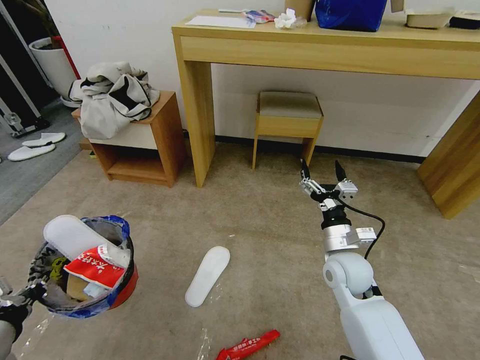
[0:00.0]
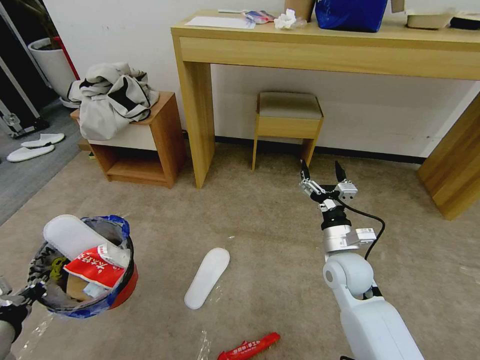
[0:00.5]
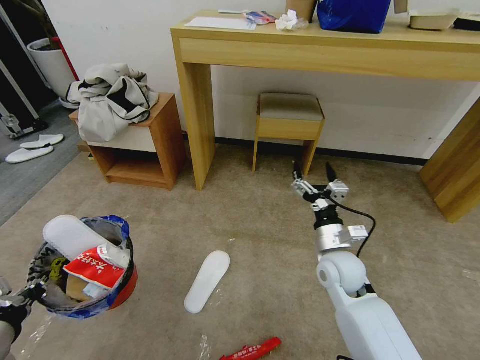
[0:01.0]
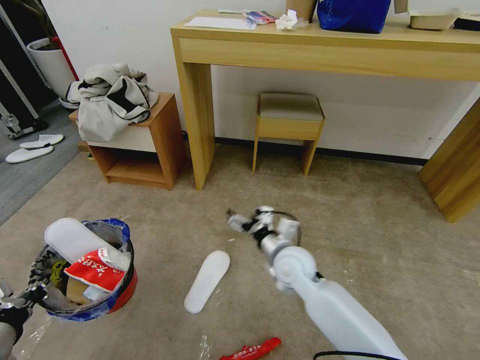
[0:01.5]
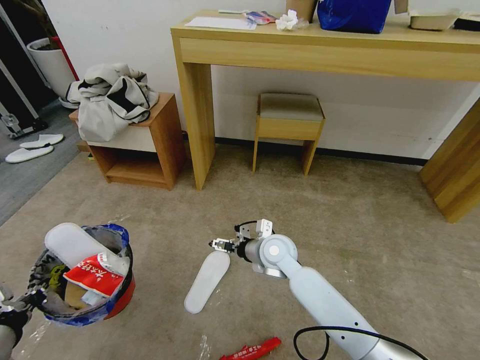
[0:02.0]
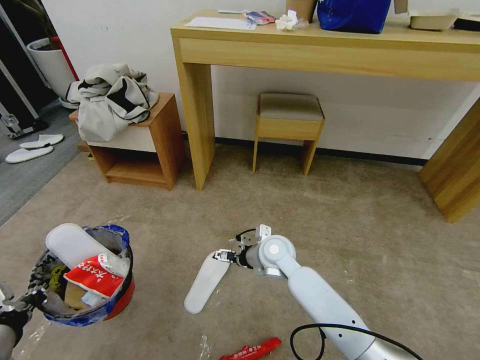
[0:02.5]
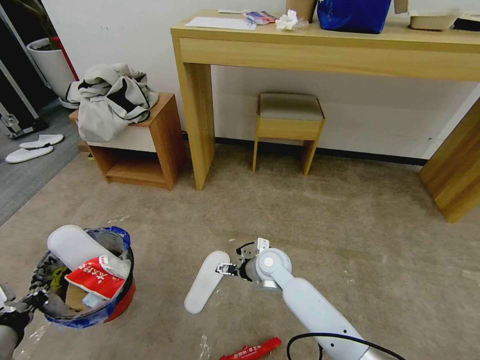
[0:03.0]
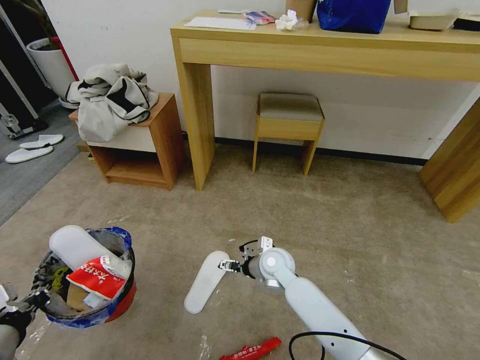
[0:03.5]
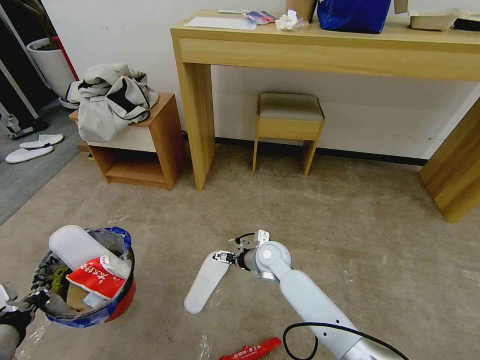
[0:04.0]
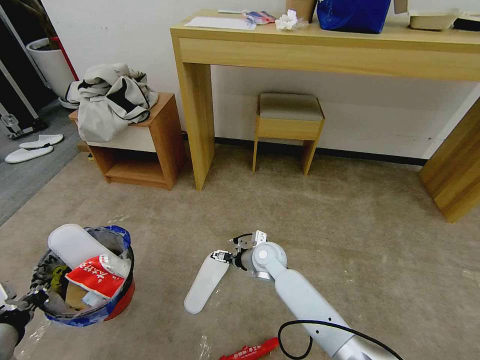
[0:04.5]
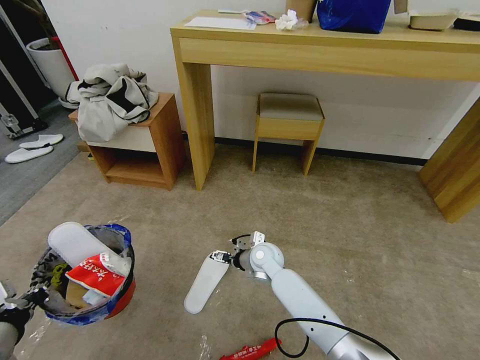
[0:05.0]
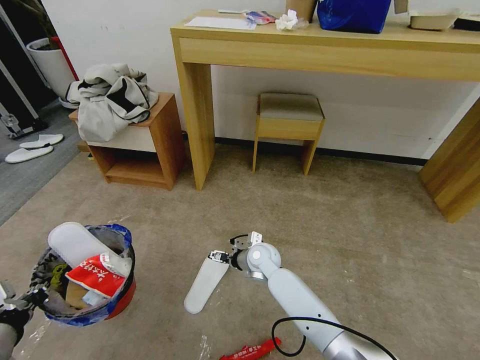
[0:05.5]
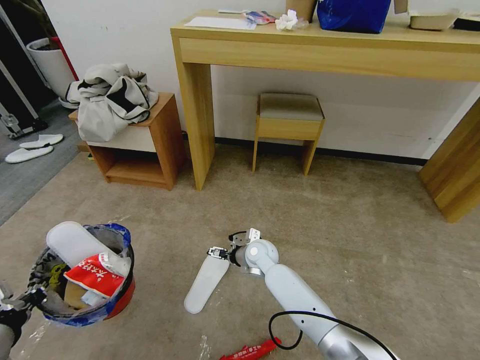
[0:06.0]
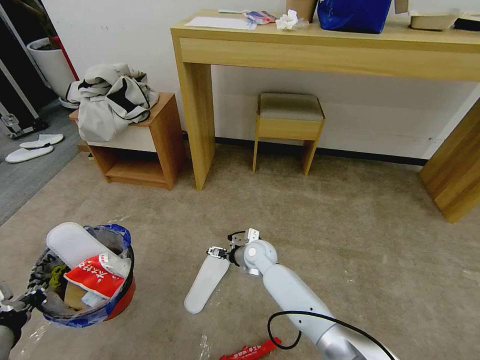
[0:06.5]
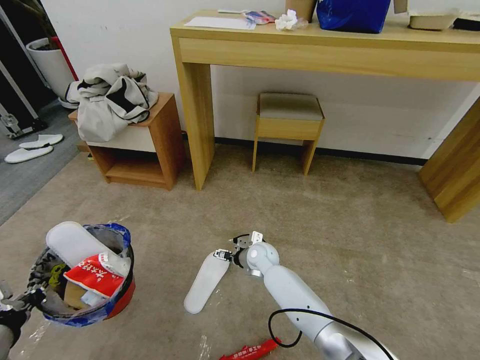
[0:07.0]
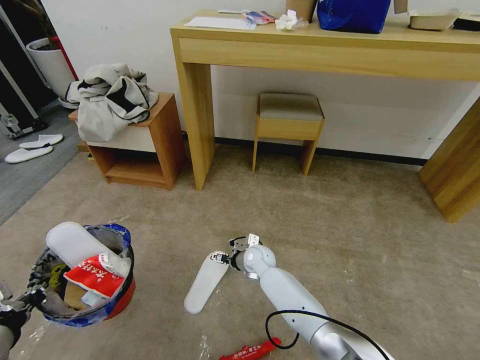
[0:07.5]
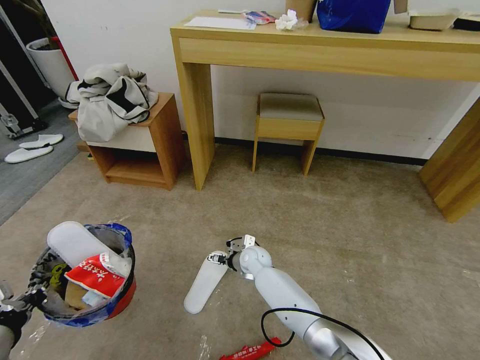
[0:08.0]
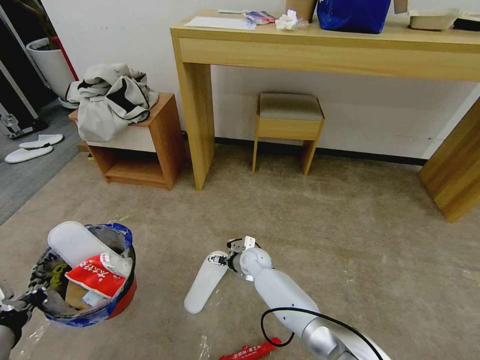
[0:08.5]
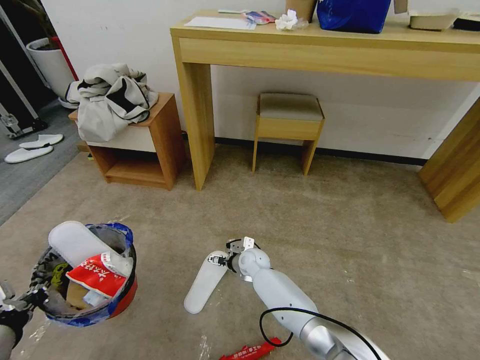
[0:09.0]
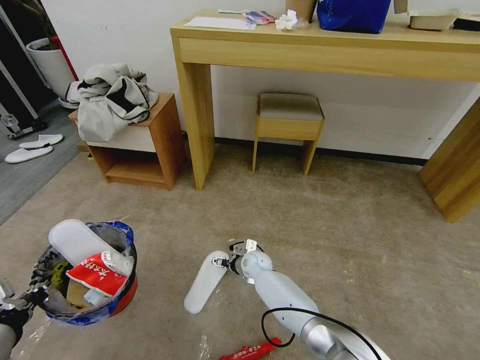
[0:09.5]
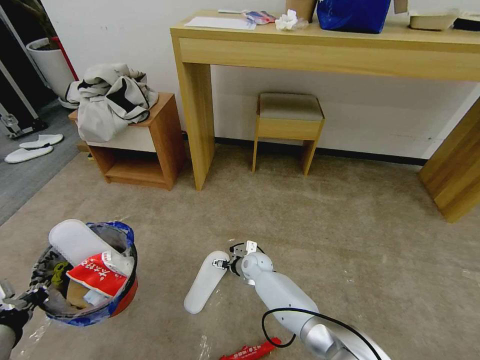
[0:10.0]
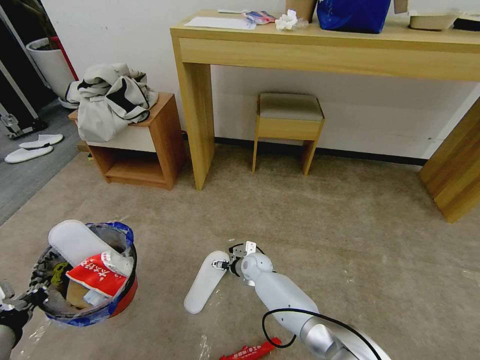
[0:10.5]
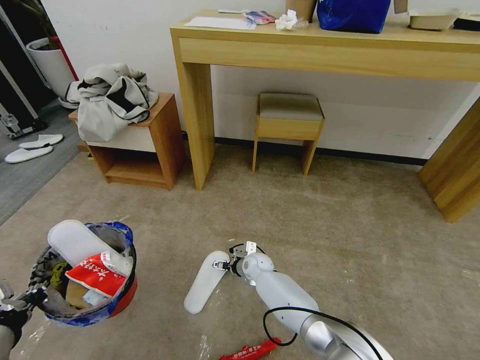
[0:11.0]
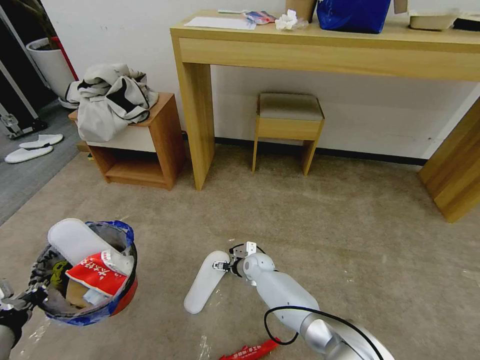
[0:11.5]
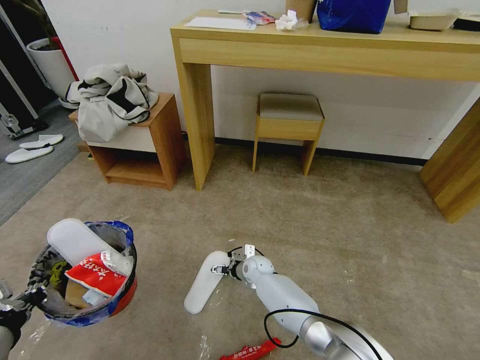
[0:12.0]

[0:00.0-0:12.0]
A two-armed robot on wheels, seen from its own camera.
Task of the whole recording: Pick up the trash bin and place the garbage on the floor into it.
0:00.0 to 0:02.0: The right gripper moves to the left and forward, roughly 15 cm.
0:02.0 to 0:04.0: The right gripper is displaced downward by some 5 cm.
0:04.0 to 0:06.0: The grippers make only small movements.
0:06.0 to 0:08.0: The right gripper moves some 5 cm.
0:08.0 to 0:12.0: There are only small adjustments of the grippers.

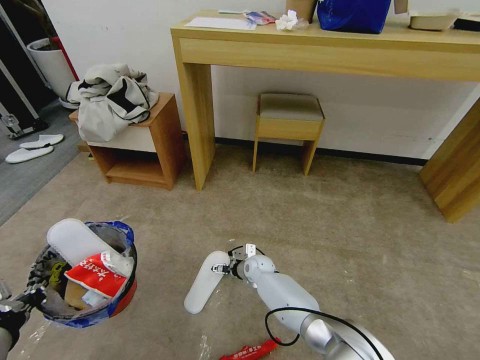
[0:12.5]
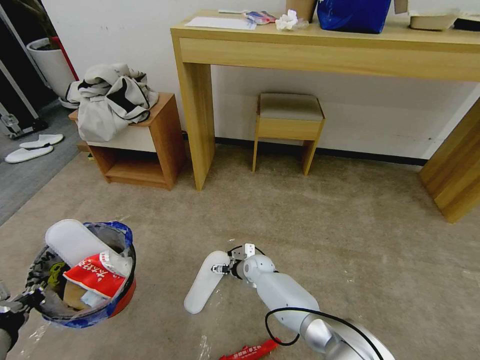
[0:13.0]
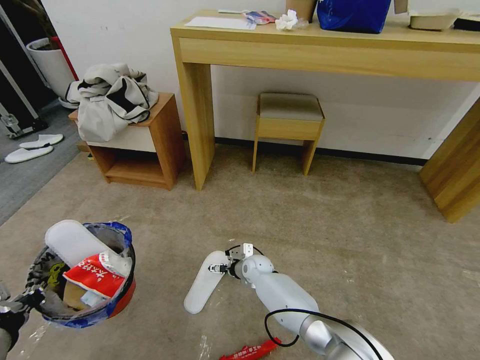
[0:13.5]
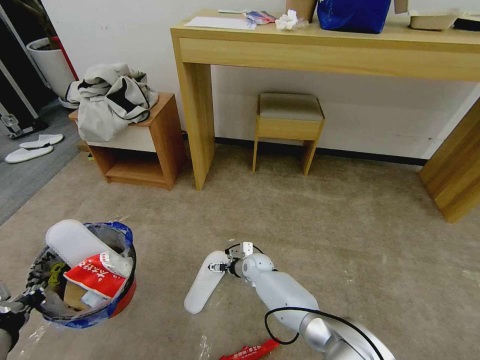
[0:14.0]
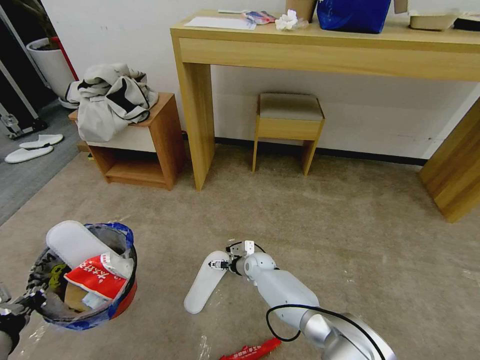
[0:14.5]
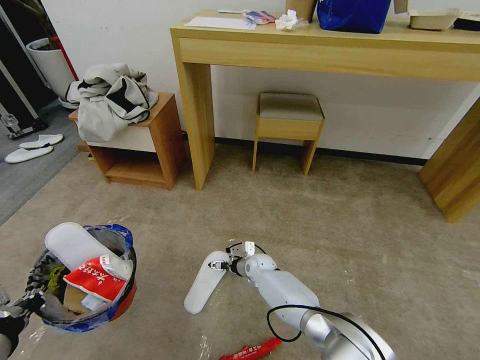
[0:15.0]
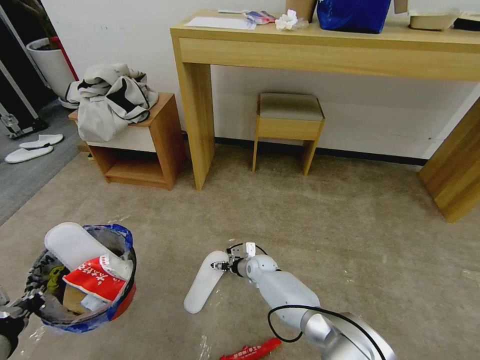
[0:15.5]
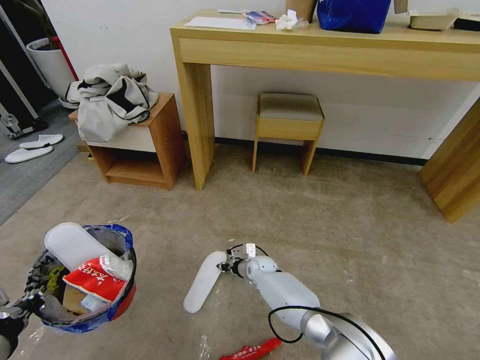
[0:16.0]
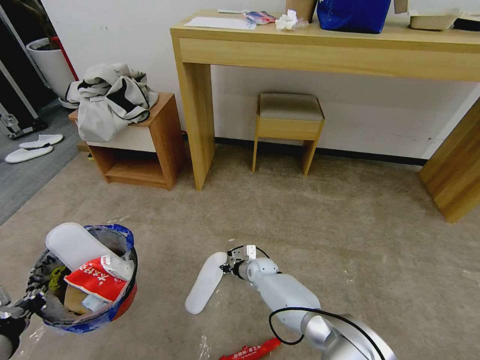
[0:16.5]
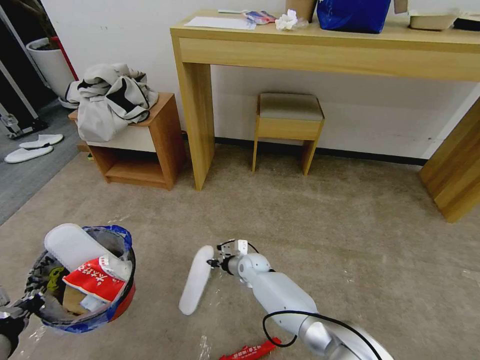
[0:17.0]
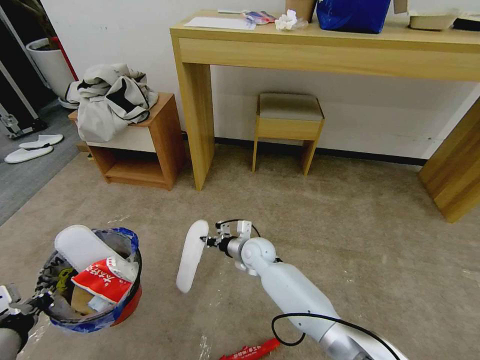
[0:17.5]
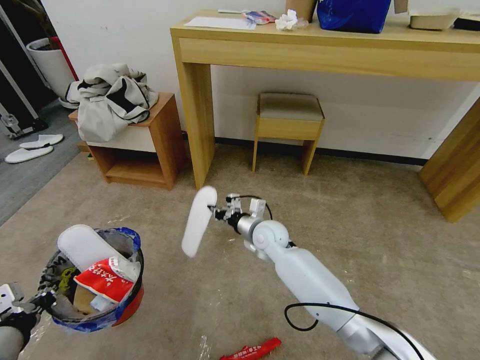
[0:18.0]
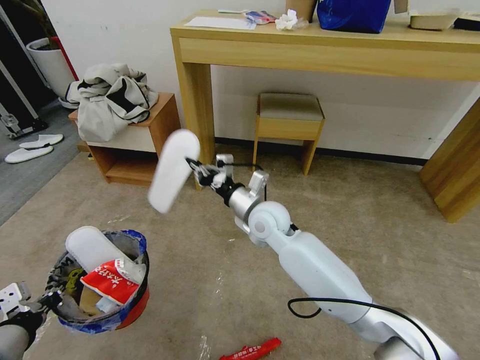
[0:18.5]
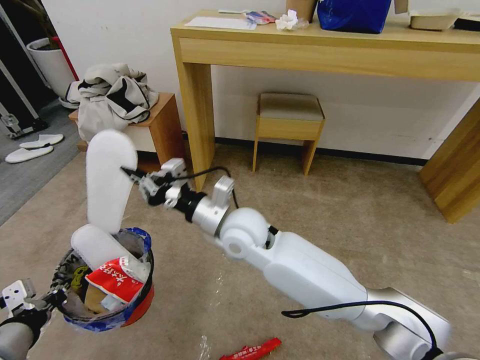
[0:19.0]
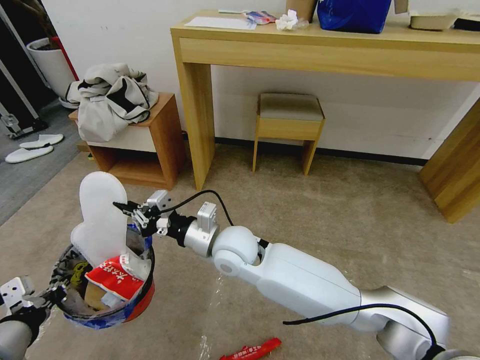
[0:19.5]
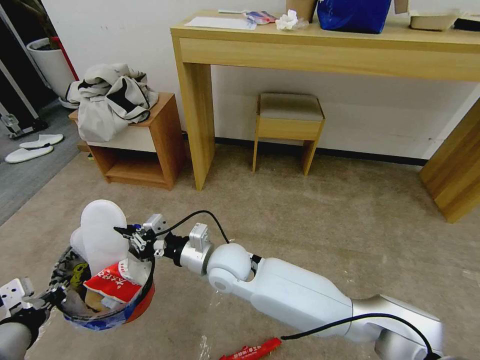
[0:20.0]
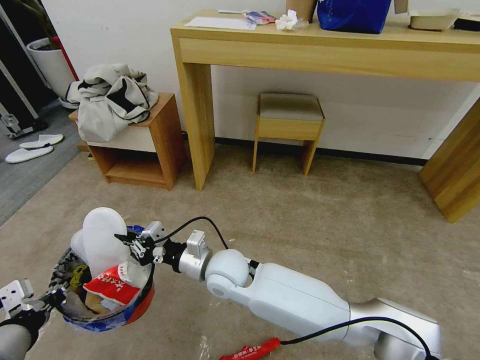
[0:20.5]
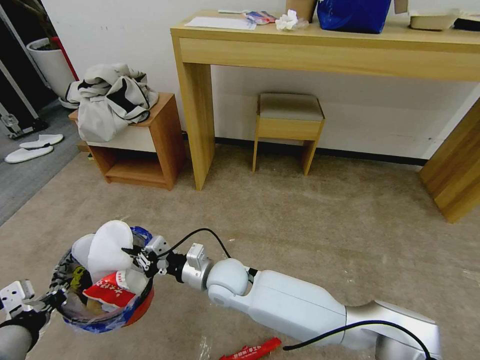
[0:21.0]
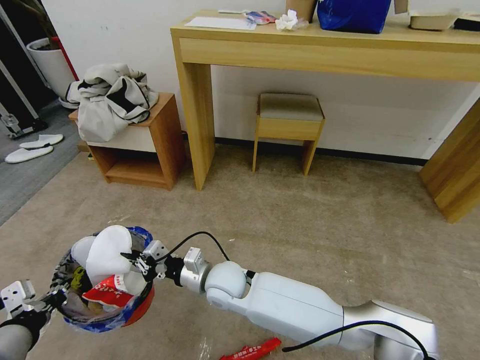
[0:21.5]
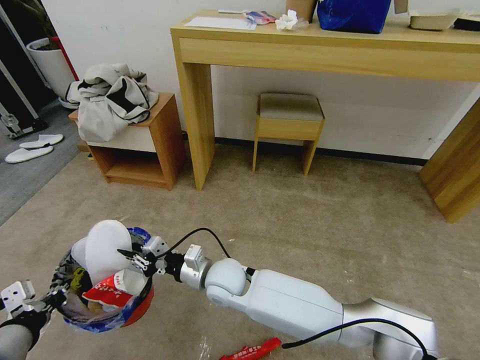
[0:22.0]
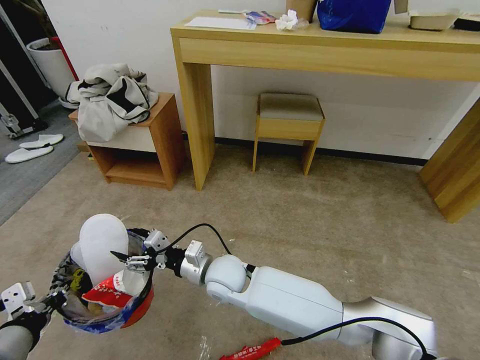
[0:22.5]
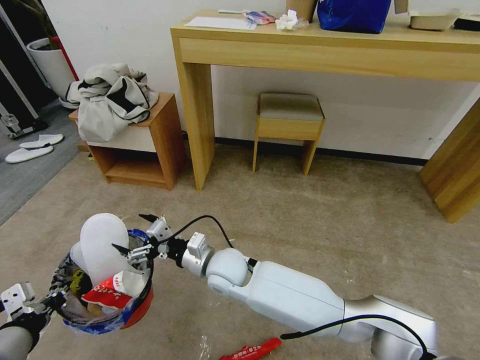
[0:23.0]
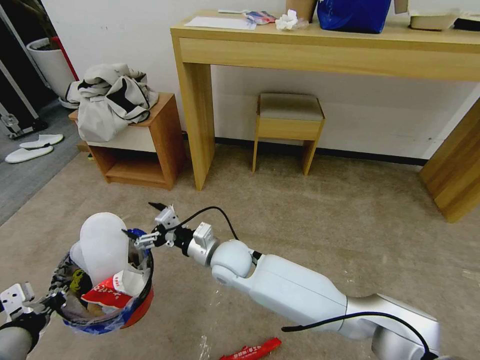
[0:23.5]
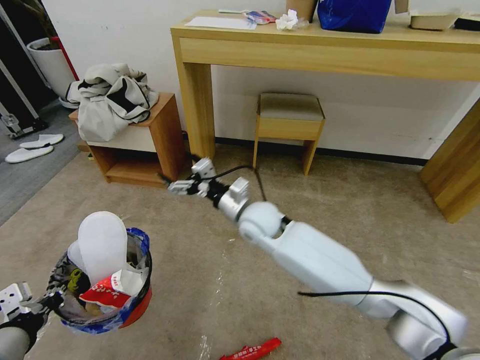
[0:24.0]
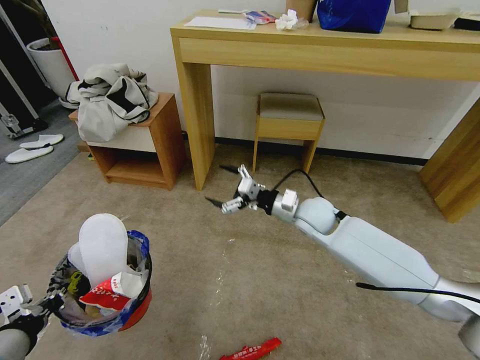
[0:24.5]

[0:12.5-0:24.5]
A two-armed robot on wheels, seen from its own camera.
Task of the whole recording: Pick up the trash bin and place the garbage on the floor into it.
0:12.5 to 0:14.5: The grippers make only small movements.
0:14.5 to 0:16.5: The right gripper closes.
0:16.5 to 0:18.5: The right gripper travels upward by some 30 cm.
0:18.5 to 0:20.5: The right gripper shifts some 15 cm backward, to the left and downward.
0:20.5 to 0:22.5: The right gripper opens up.
0:22.5 to 0:24.5: The right gripper moves to the right and forward, some 25 cm.

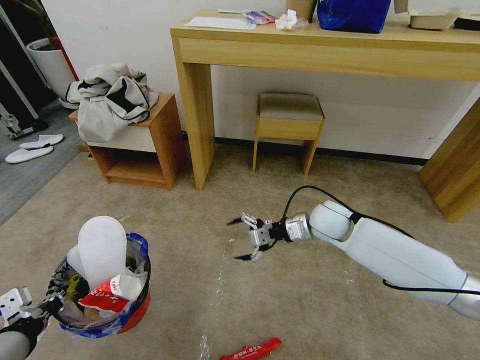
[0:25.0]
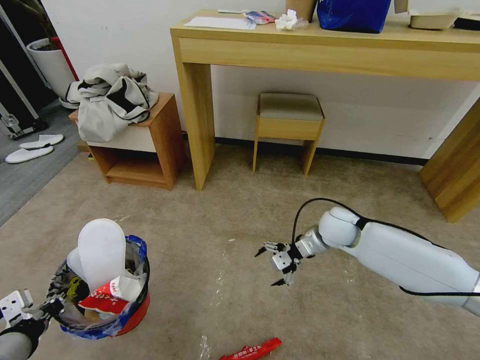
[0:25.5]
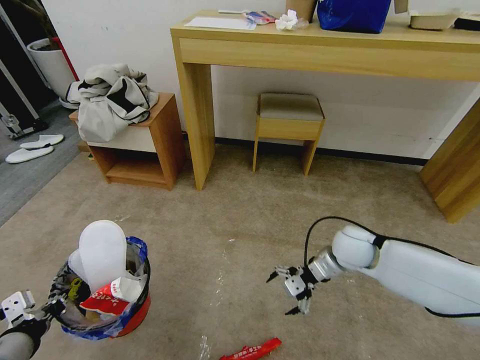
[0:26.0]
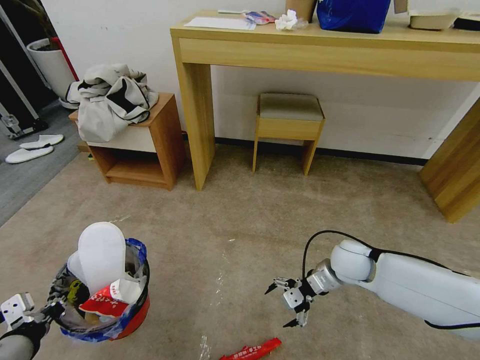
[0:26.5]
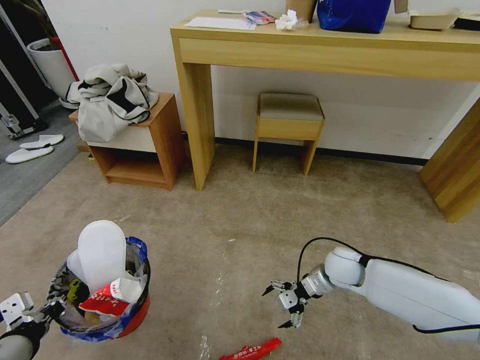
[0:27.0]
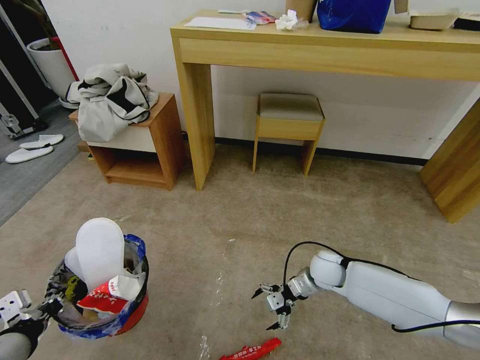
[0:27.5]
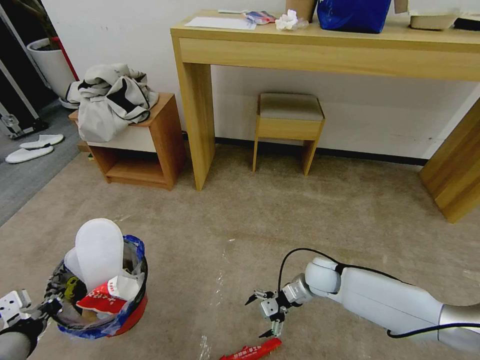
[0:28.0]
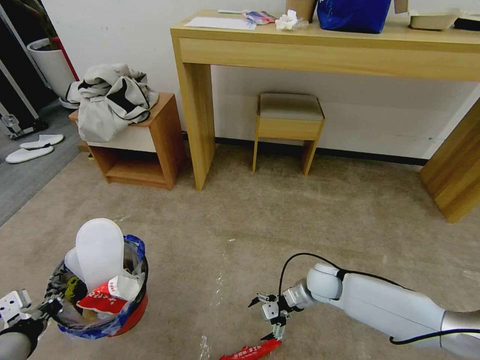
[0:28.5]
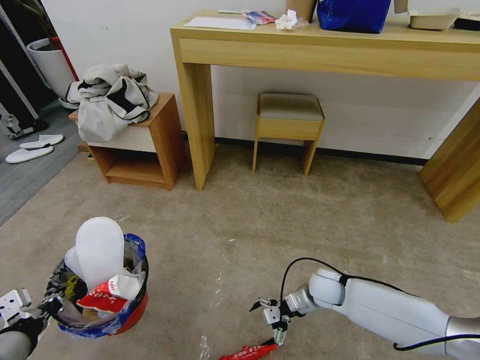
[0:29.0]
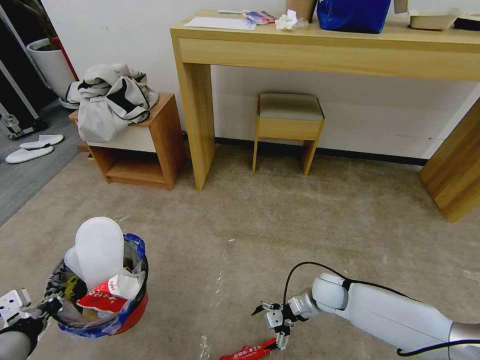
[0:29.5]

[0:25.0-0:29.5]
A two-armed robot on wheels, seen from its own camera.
Task of the whole recording: Pick up the trash bin and place the garbage on the floor into it.
0:25.0 to 0:27.0: The right gripper moves downward and backward, about 15 cm.
0:27.0 to 0:29.5: The right gripper travels downward by roughly 10 cm.
